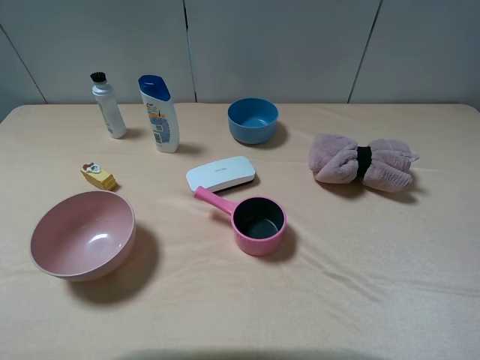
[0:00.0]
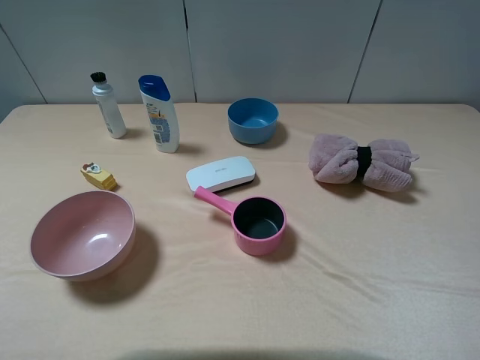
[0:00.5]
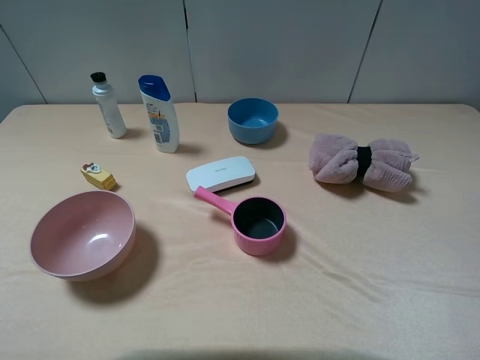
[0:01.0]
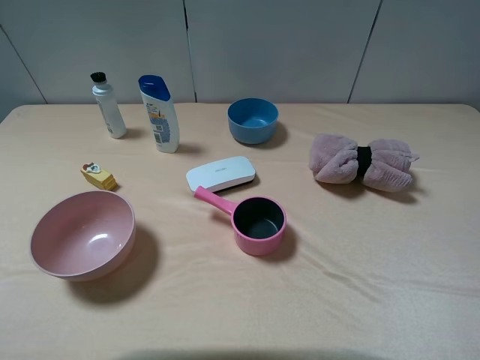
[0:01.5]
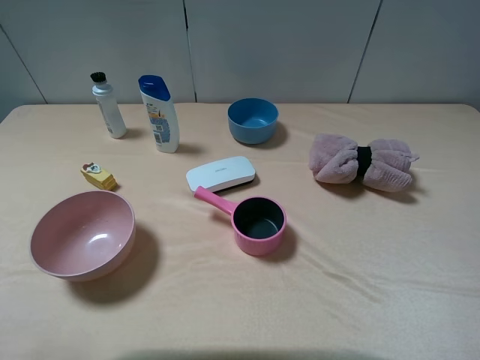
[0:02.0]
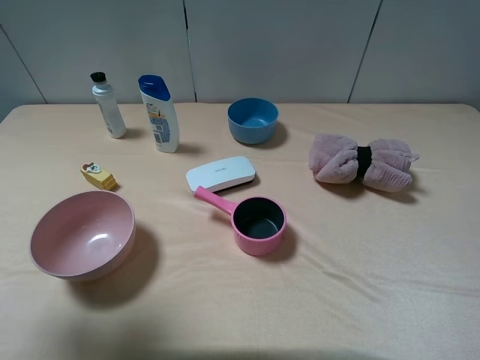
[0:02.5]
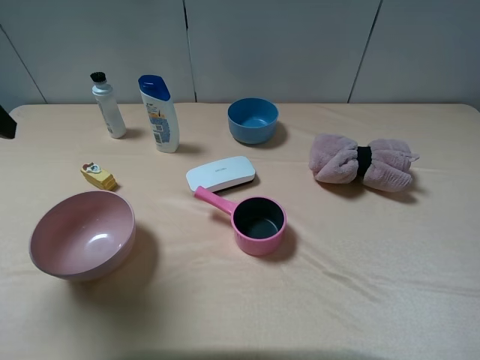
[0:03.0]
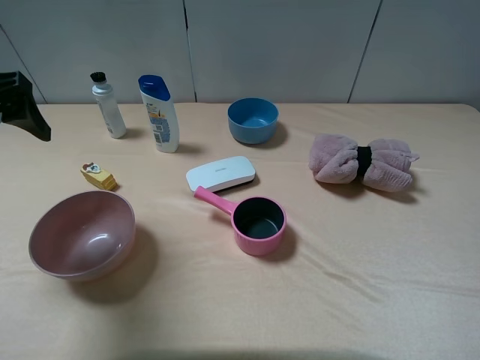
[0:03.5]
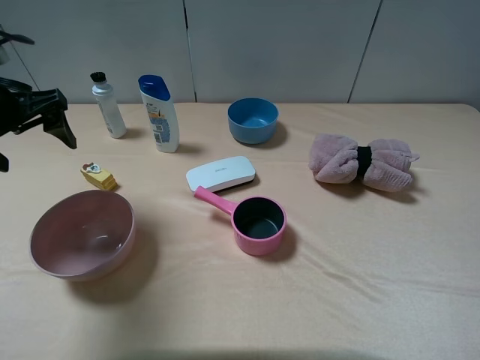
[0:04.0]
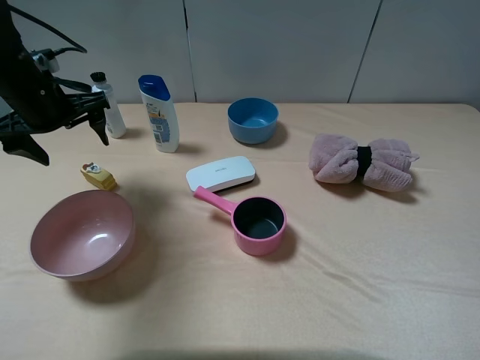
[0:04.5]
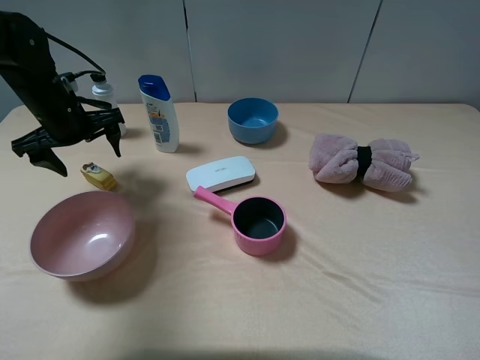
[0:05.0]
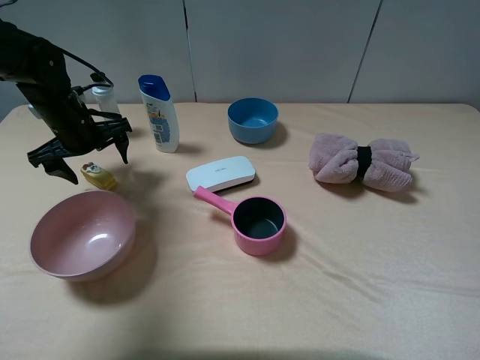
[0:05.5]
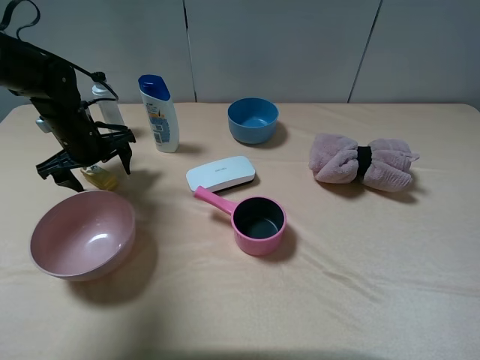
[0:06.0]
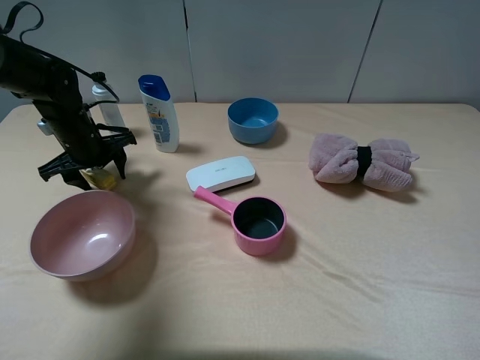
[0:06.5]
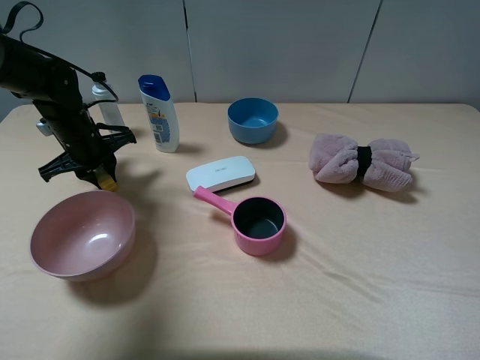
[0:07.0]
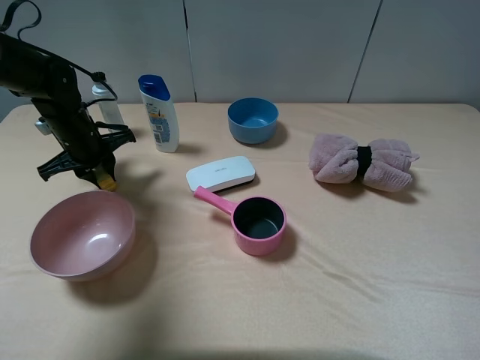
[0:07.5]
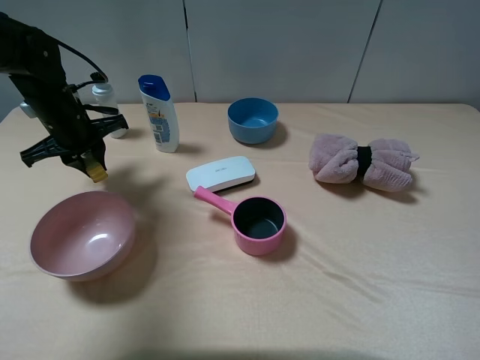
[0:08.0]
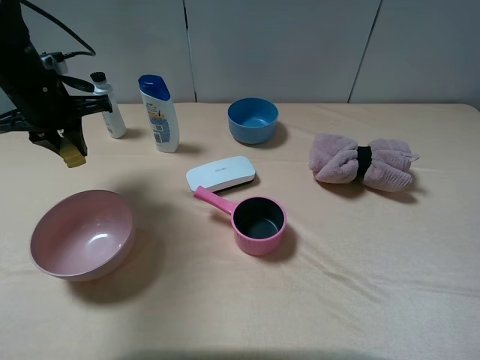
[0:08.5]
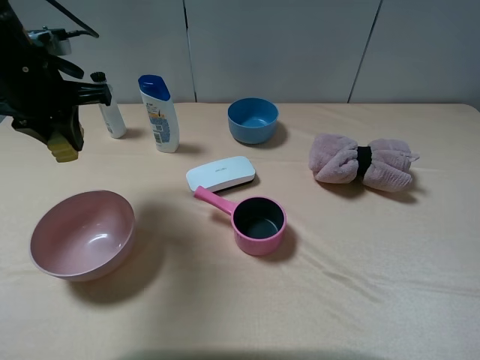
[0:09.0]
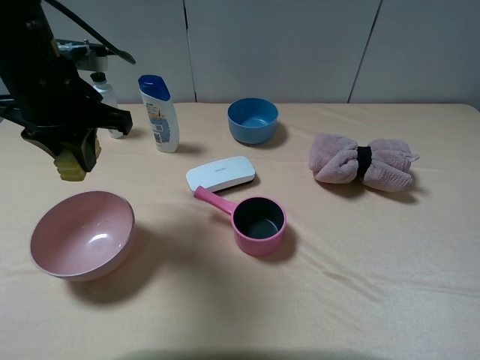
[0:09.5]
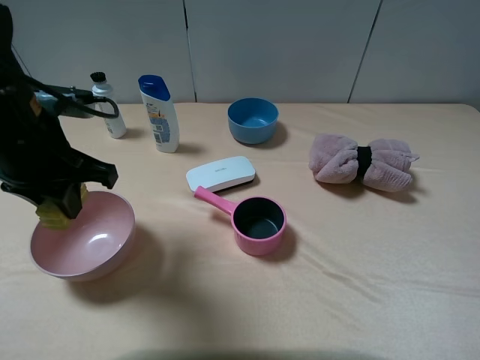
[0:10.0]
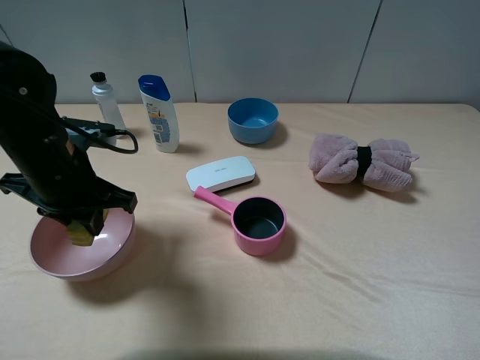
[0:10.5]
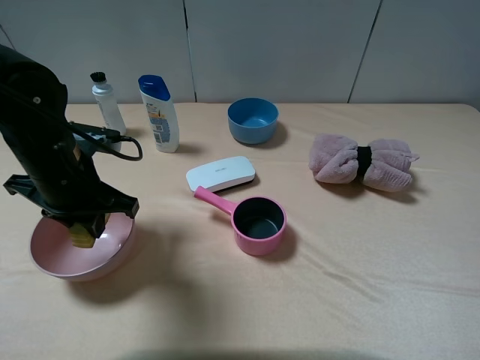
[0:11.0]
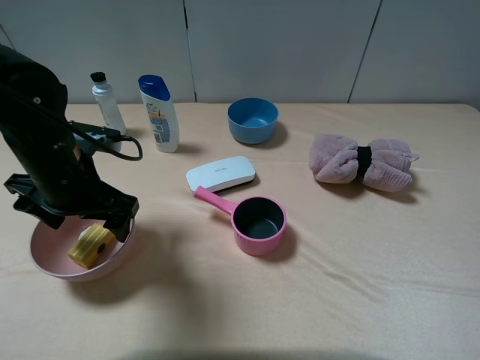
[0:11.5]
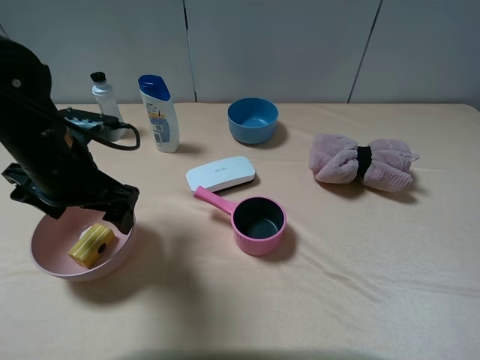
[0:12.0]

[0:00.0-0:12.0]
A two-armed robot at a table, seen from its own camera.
Task of the whole recording: pick up an item with a gripper and place it in a random container on the table.
Step, 0:00.0 to 0:06.5: Grasp the yellow cake with the left gripper.
0:02.0 to 0:04.0: The left gripper goes about 25 cm forward and downward.
0:04.0 to 0:06.0: The left gripper shifts about 15 cm downward and forward.
0:06.0 to 0:08.0: The left gripper closes up.
0:08.0 to 0:10.0: The left gripper travels backward, upward and to the right by roughly 15 cm.
0:10.0 to 0:12.0: The left gripper opens.

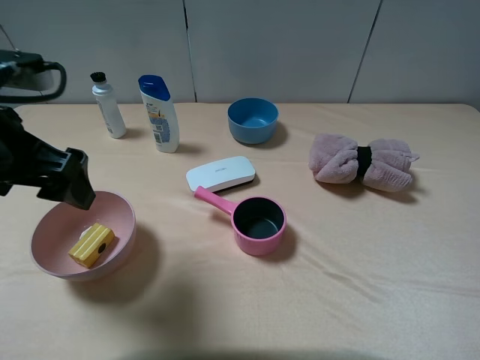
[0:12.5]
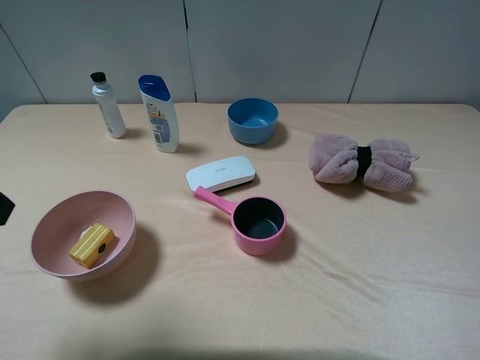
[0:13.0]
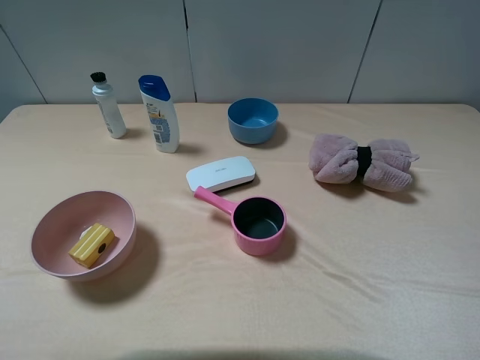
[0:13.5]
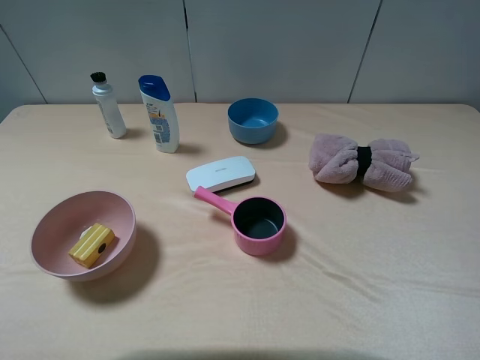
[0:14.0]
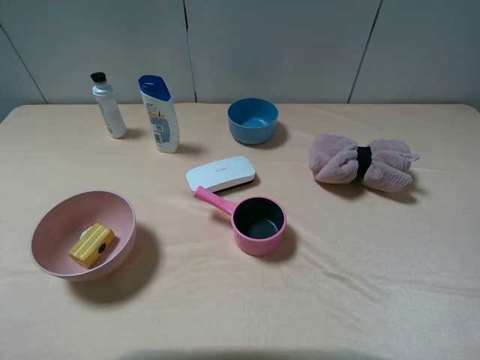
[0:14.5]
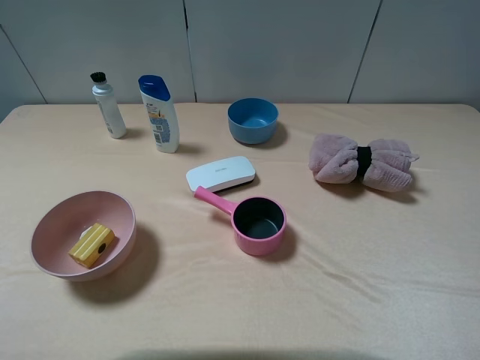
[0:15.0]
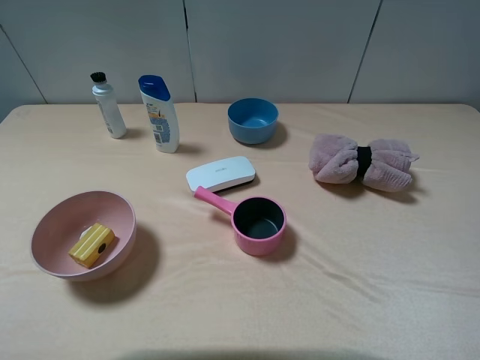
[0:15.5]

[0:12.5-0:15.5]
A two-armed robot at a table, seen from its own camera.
Task of the whole recording: pick up an item with a gripper and place it in a random container on the table.
0:12.5 to 0:14.0: The left gripper goes approximately 20 cm backward and to the left.
